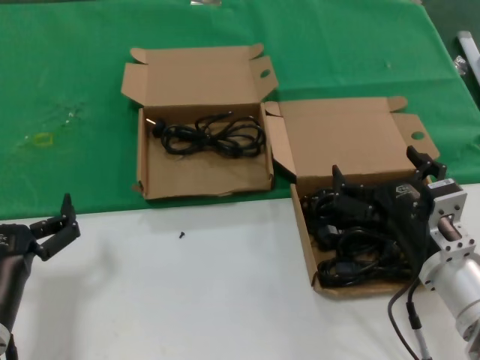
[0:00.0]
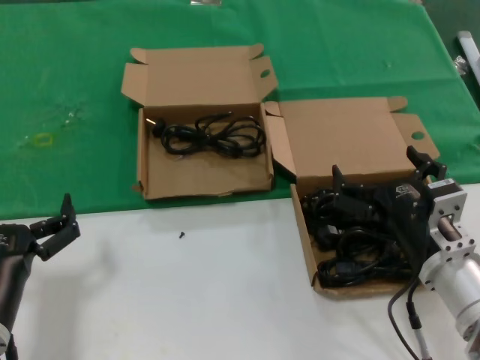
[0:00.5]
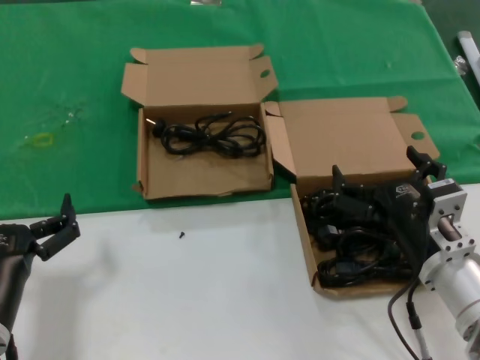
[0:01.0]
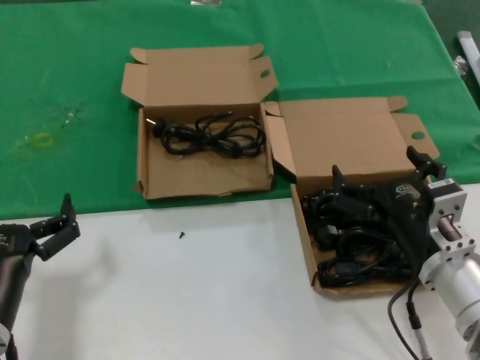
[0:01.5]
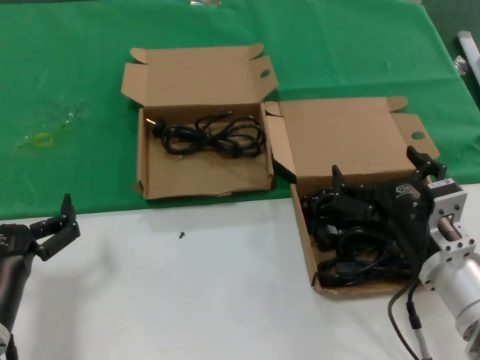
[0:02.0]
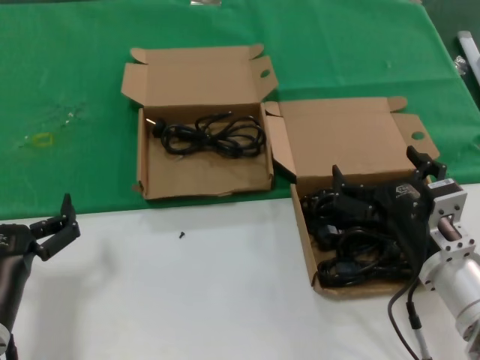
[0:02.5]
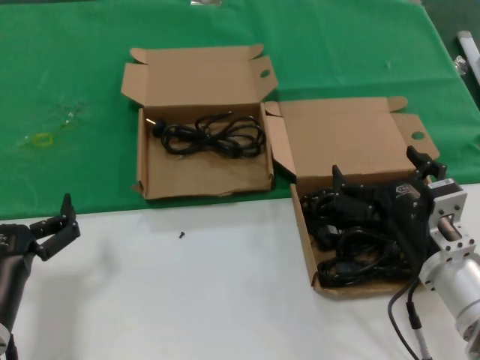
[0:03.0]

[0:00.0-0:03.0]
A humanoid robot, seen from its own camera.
Task of the whole recording: take the parts from the box containing them and put them into an empty box.
0:00.0 to 0:03.0: The two hands keep their place.

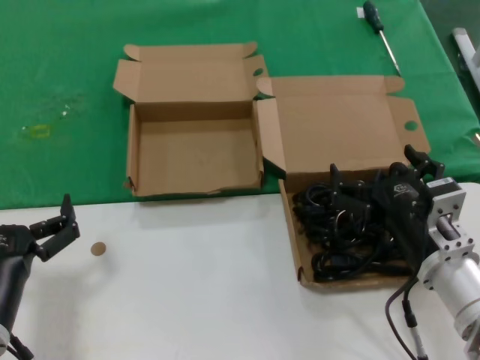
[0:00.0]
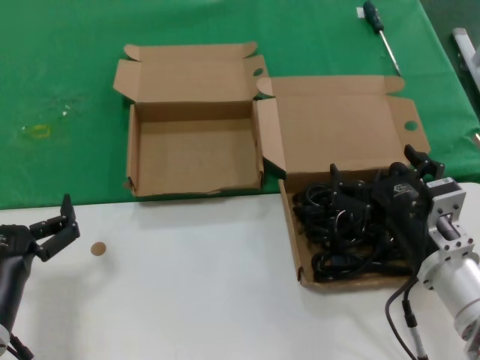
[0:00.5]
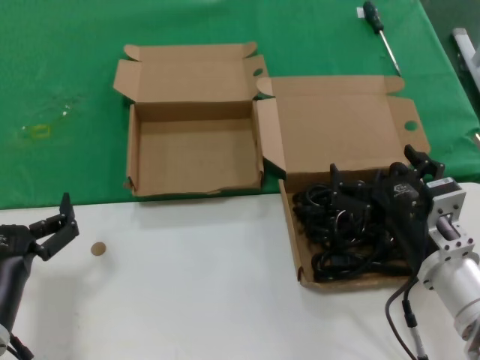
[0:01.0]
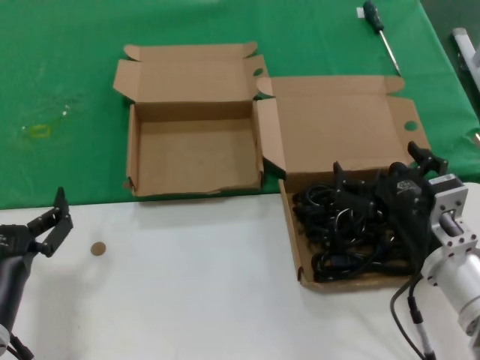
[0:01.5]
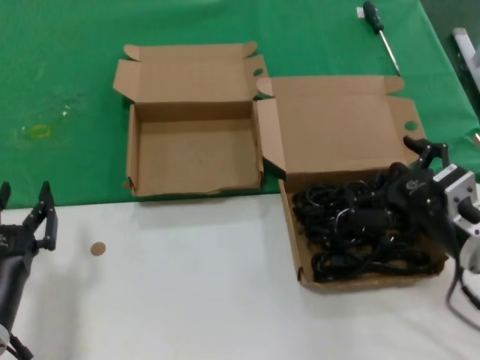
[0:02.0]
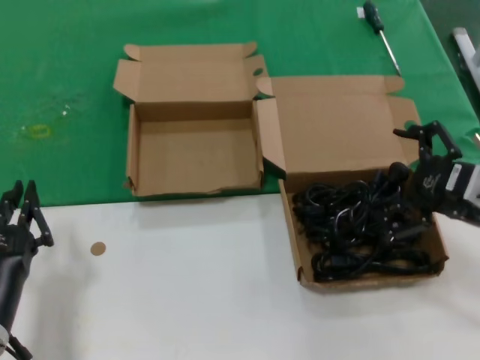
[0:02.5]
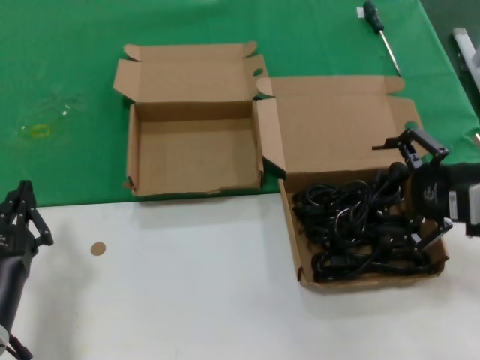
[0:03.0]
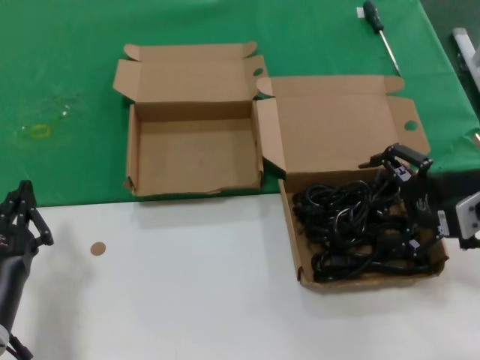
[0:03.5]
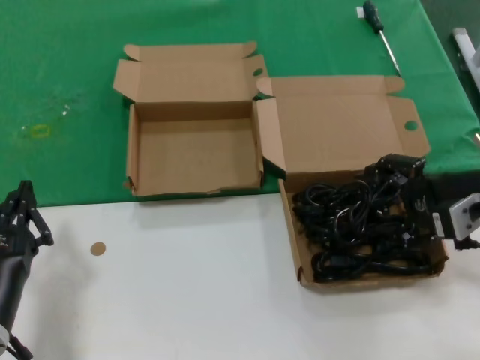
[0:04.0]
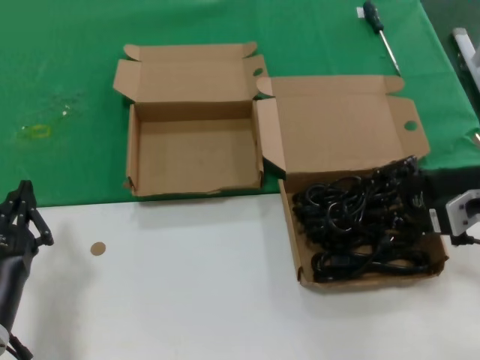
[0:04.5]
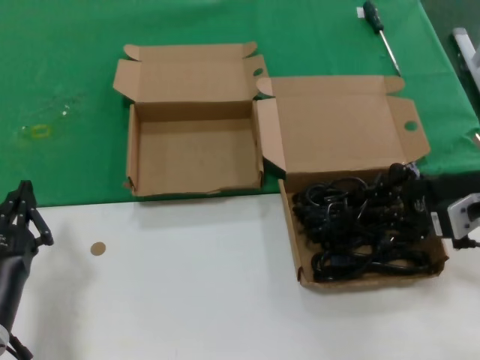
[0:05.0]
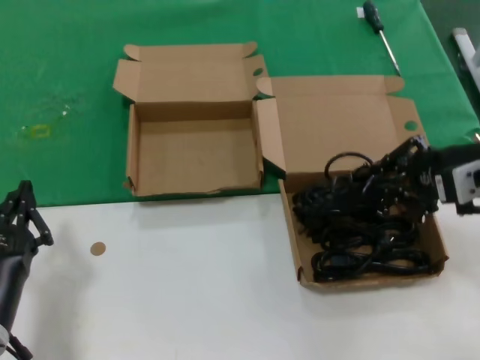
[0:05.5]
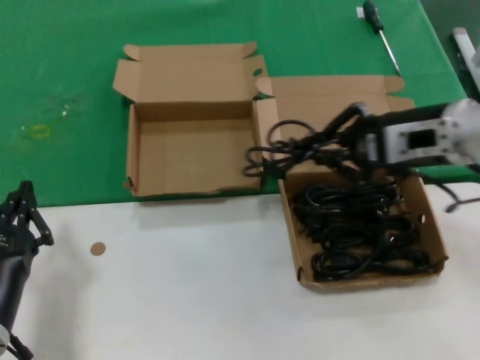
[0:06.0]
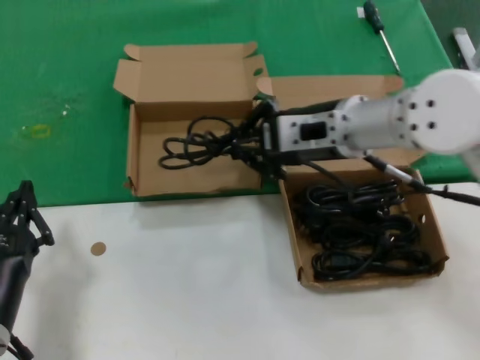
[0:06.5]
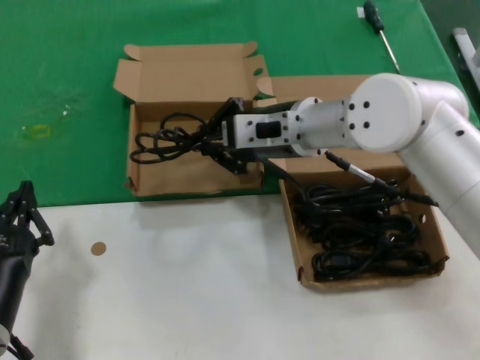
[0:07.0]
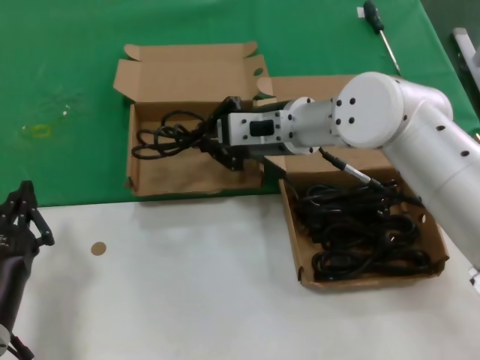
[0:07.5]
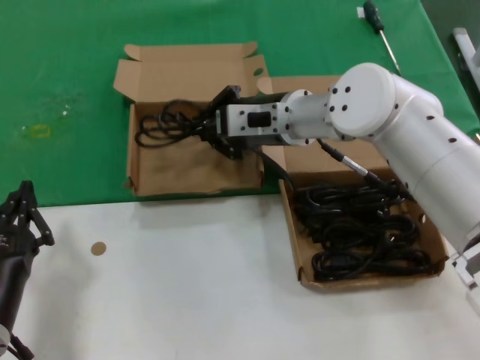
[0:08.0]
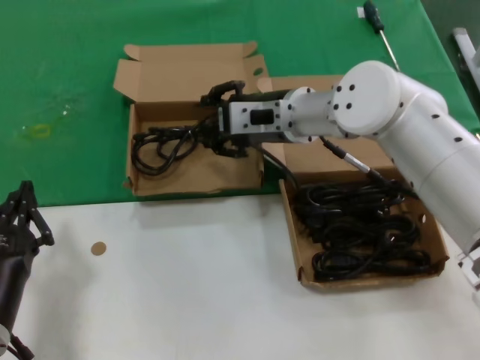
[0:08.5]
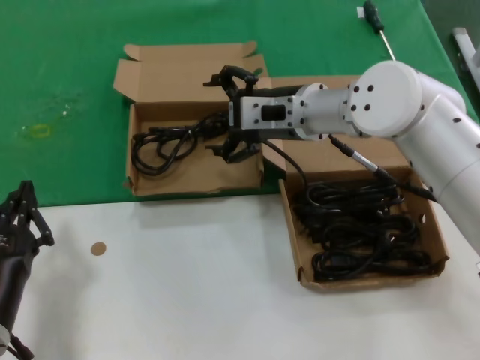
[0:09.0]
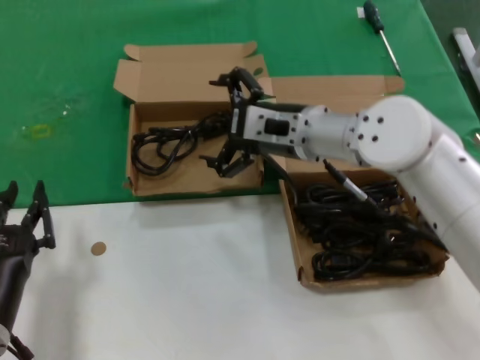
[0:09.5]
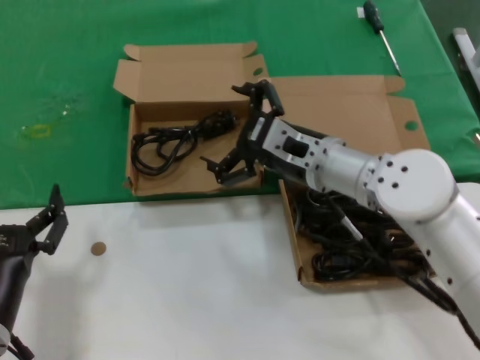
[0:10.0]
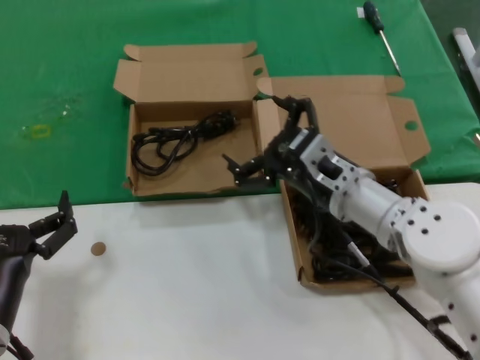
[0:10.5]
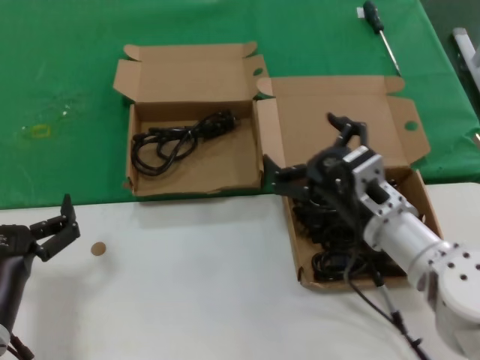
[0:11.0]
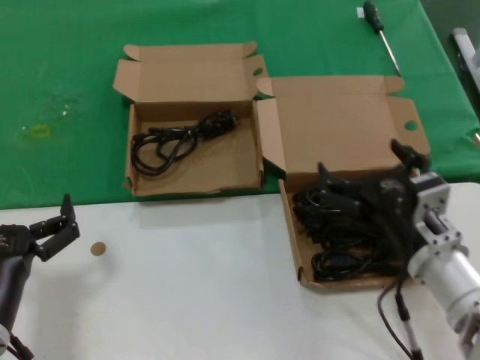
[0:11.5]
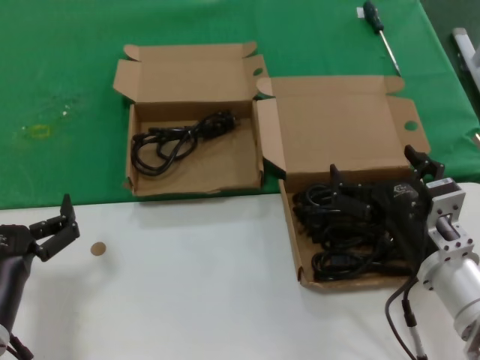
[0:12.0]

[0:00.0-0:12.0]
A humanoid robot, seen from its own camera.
Task of the whole recording: take the parts from the box containing them and put them into an empty box.
Step, 0:00.0 to 0:04.5: Grasp the data cable.
Step, 0:05.0 to 0:09.0: Place the data cable in the another box.
0:00.0 to 0:02.0: The right hand moves about 5 cm.
0:02.0 to 0:04.0: The right hand moves upward, to the right and forward, some 10 cm.
0:04.0 to 0:06.0: The right hand heads upward and to the left, covering some 10 cm.
0:06.0 to 0:08.0: The right hand heads to the left and forward, covering approximately 20 cm.
0:08.0 to 0:10.0: The right hand goes about 10 cm backward and downward.
0:10.0 to 0:12.0: The right hand is displaced backward, to the right and downward by about 20 cm.

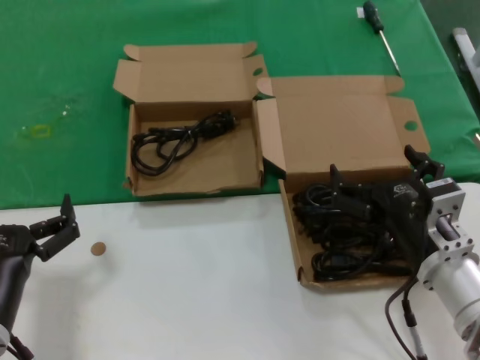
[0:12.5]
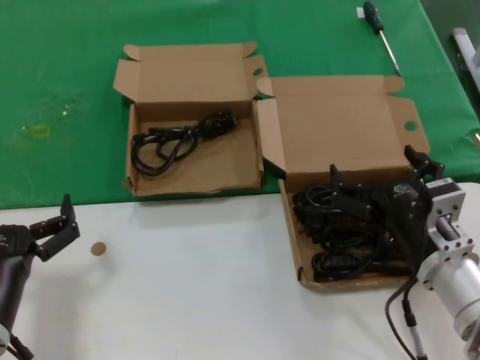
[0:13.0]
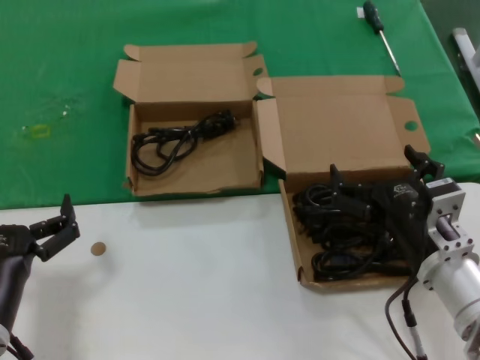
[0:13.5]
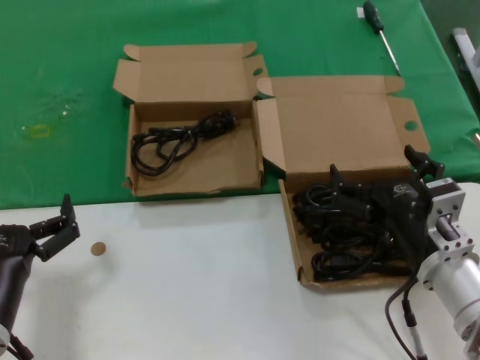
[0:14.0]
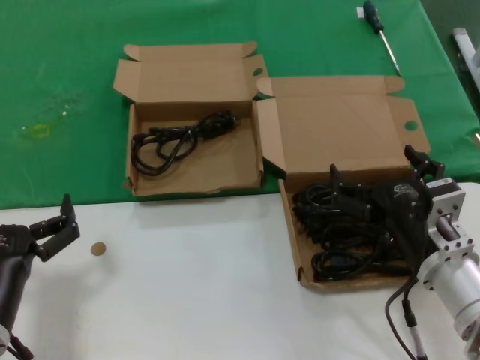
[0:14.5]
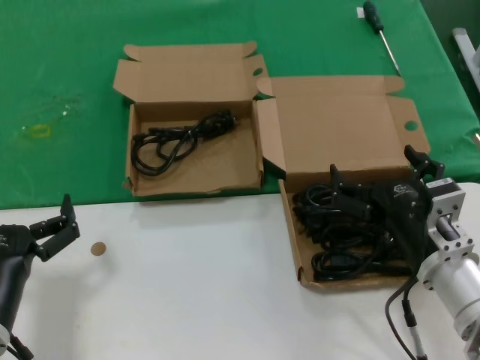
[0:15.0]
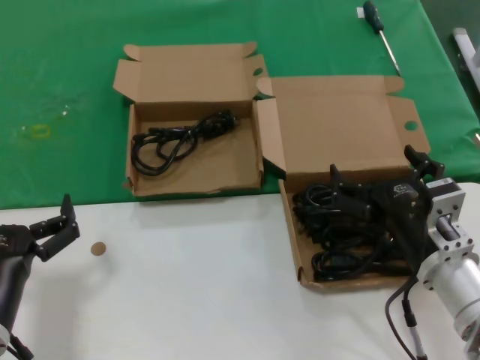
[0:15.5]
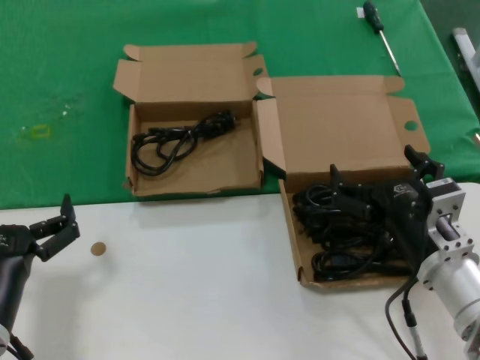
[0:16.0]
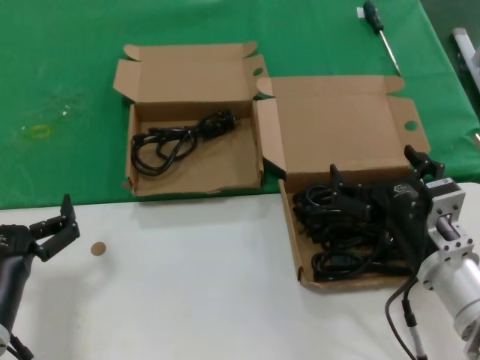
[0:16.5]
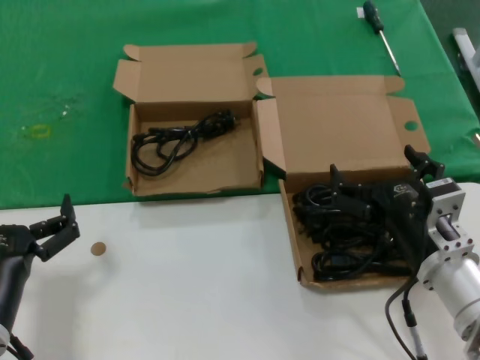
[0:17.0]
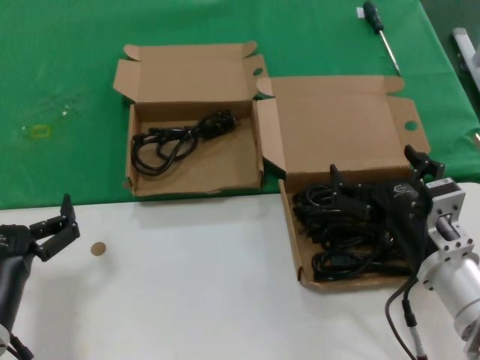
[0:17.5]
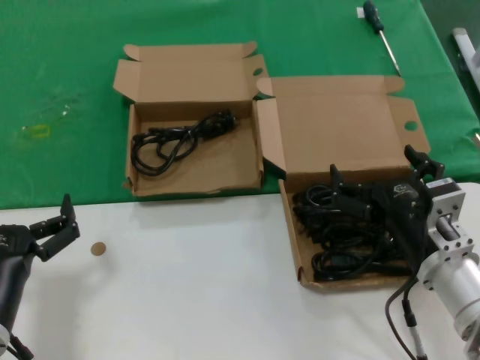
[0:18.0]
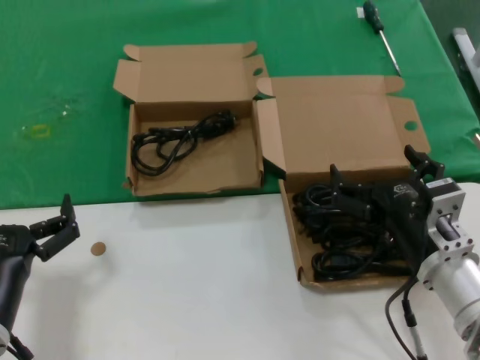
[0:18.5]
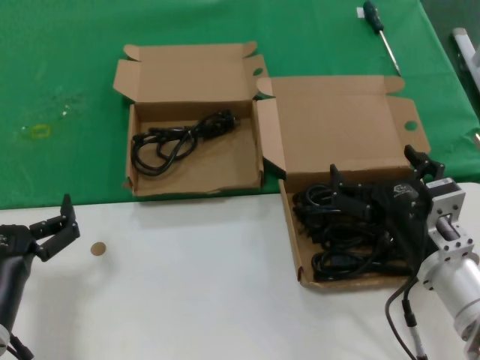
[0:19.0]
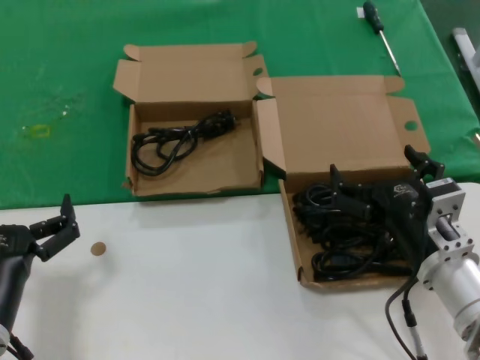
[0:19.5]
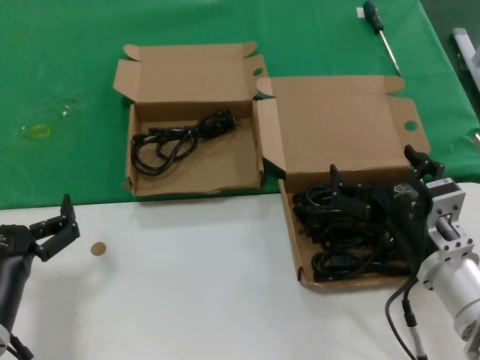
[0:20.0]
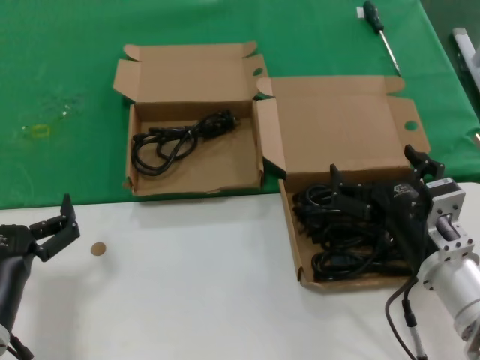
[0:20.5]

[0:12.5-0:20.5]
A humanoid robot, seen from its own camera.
Task of the whole recording: take the parts from the box containing them and put them into an empty box.
0:12.5 to 0:20.5: Both hands stay about where they are.
